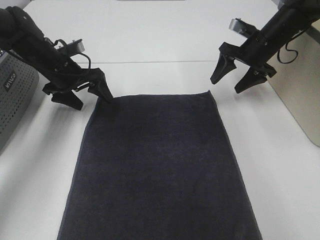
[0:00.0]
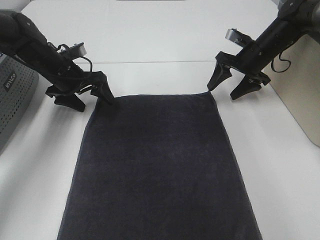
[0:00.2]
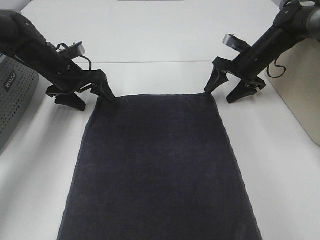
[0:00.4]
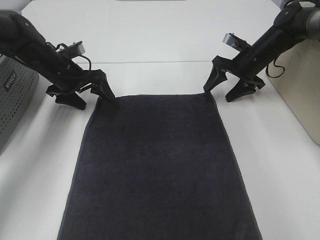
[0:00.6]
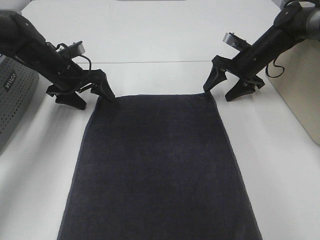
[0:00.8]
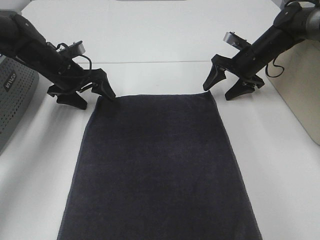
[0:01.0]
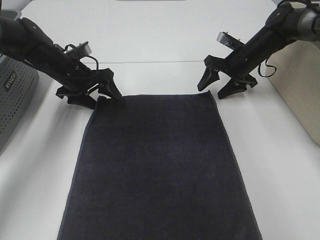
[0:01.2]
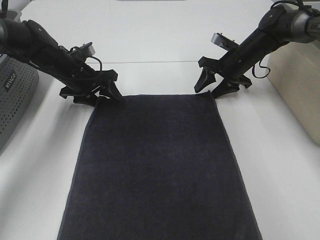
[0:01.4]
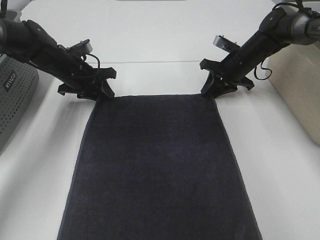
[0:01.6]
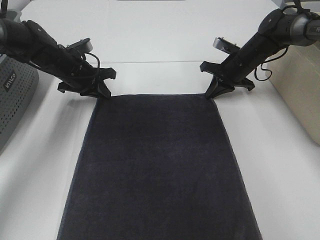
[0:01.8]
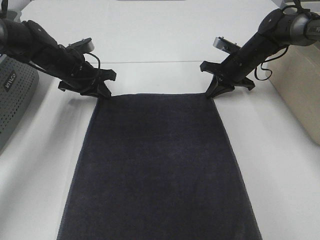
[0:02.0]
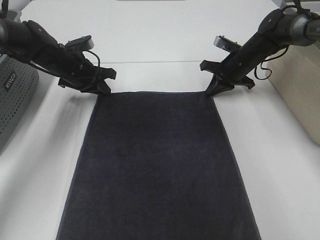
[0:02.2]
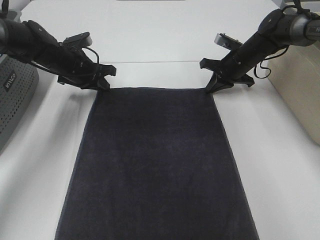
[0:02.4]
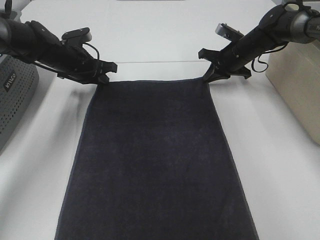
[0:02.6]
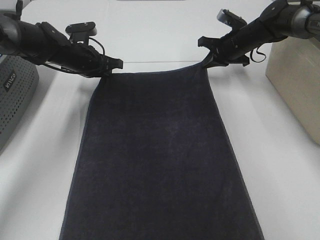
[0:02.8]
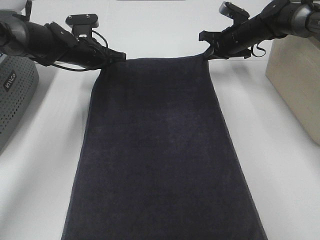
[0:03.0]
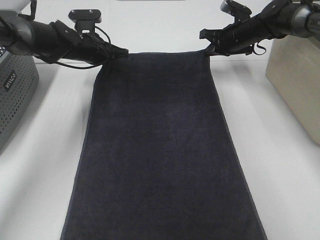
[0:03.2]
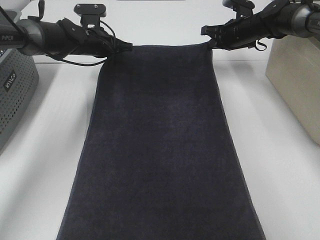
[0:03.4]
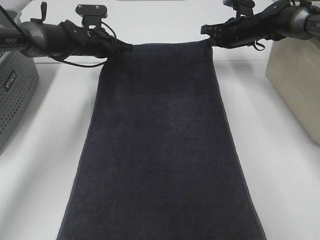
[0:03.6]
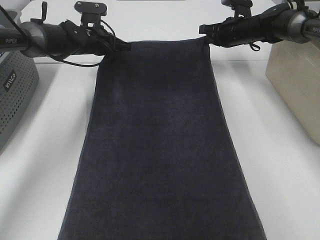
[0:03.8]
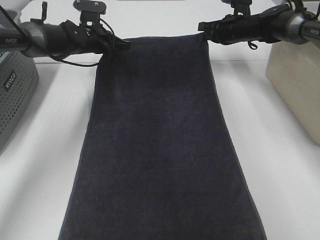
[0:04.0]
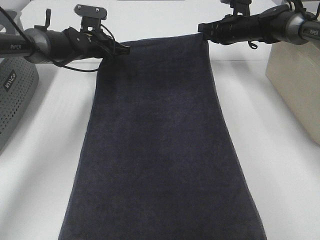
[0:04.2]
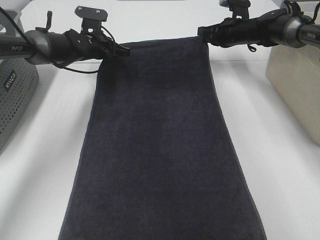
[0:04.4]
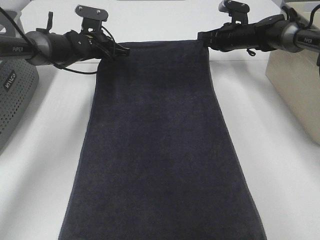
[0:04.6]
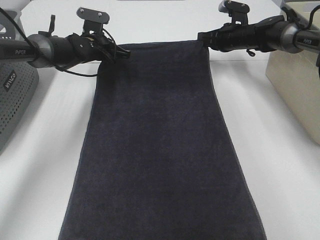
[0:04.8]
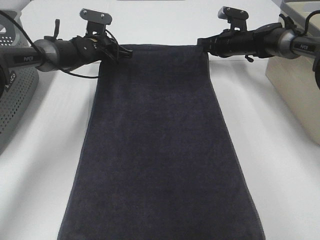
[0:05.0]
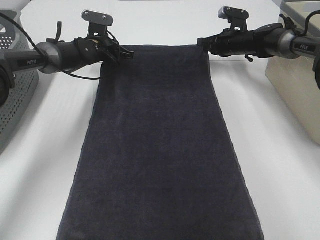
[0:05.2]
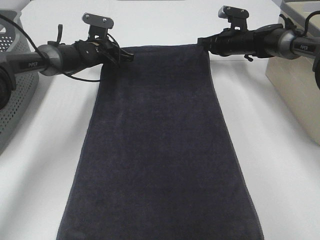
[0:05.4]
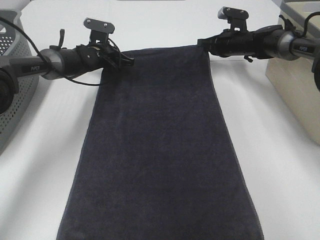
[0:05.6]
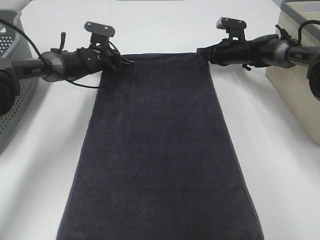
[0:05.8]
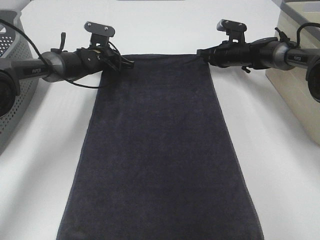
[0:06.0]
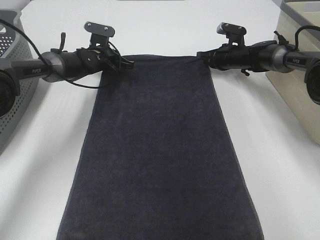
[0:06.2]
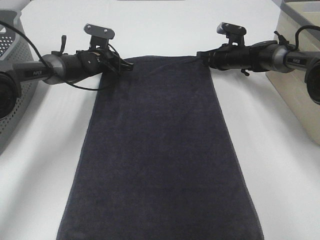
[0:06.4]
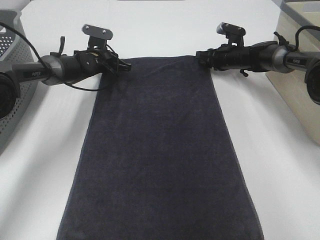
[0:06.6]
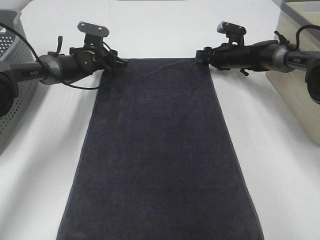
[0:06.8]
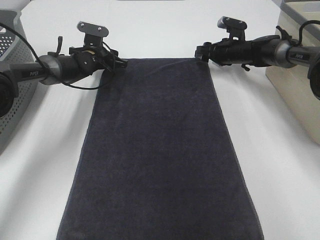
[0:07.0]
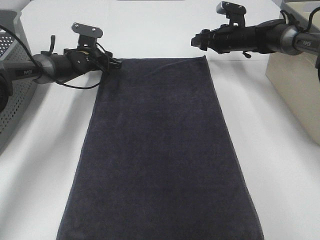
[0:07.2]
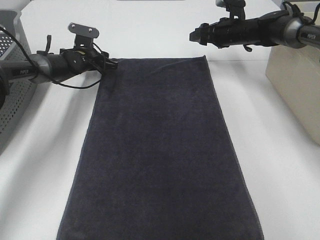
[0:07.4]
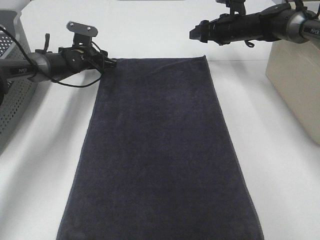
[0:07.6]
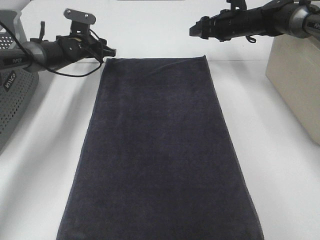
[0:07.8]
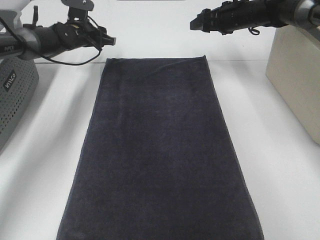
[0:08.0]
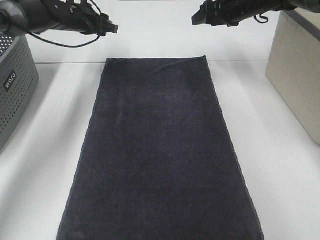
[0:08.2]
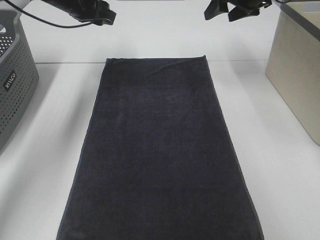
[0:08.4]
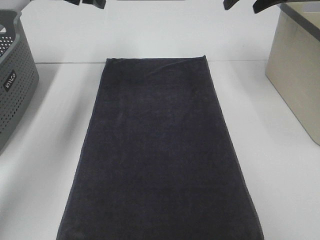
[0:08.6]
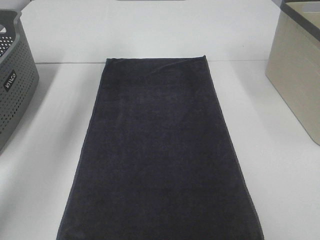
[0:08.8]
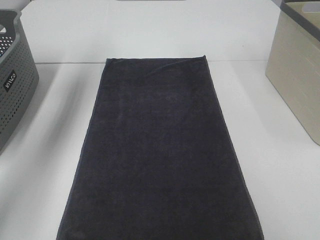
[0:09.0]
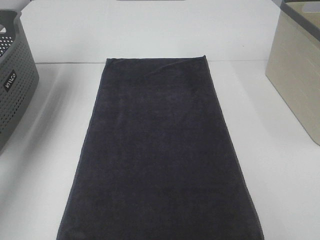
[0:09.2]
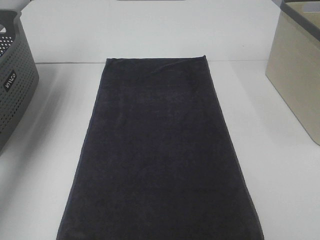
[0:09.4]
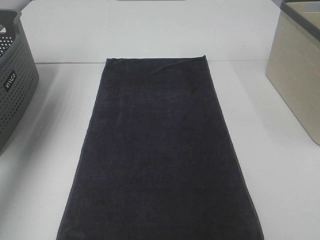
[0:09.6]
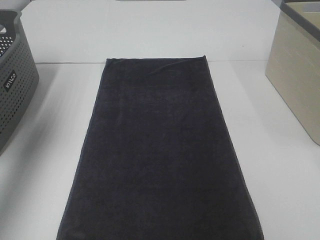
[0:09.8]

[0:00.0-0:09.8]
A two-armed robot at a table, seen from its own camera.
Task of the whole recording: Remove the towel and place it.
0:00.0 to 0:01.4: The right gripper changes place by about 5 cm.
0:01.4 to 0:02.8: The right gripper closes its fingers. The left gripper closes its fingers.
0:02.8 to 0:04.2: The left gripper moves forward, about 5 cm.
0:04.2 to 0:05.6: The grippers make only small movements.
0:05.6 to 0:07.0: The right gripper opens up. Meanwhile the left gripper opens its fingers.
0:07.0 to 0:08.4: Both grippers travel together upward, some 20 cm.
0:08.4 to 0:09.8: The left gripper moves backward, upward and to the left, some 30 cm. Meanwhile the right gripper goes some 35 cm backward and upward.

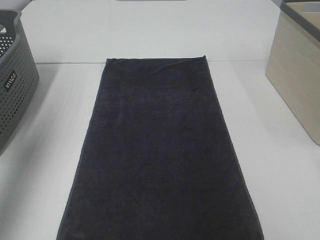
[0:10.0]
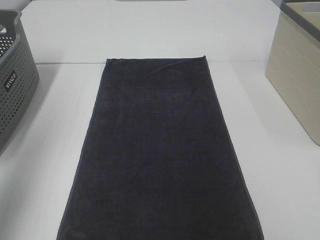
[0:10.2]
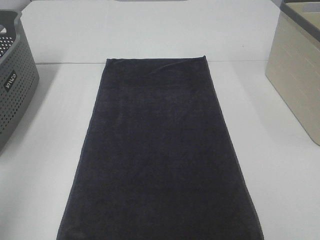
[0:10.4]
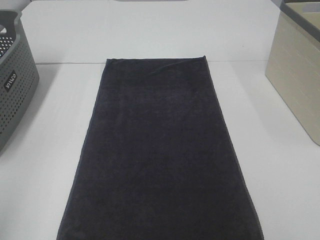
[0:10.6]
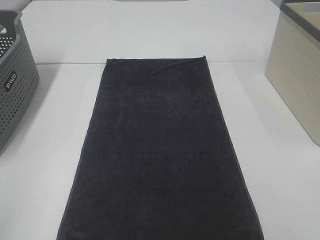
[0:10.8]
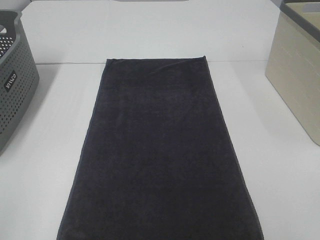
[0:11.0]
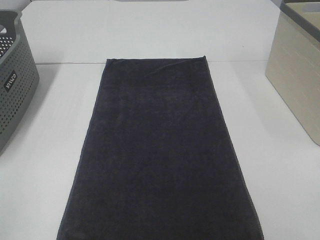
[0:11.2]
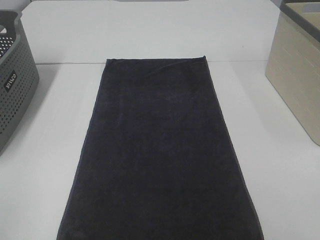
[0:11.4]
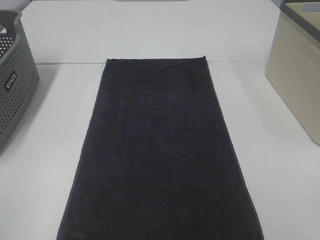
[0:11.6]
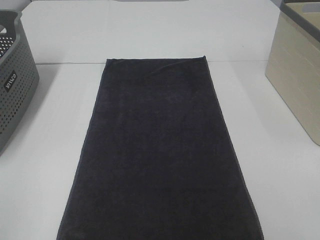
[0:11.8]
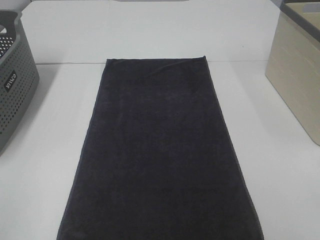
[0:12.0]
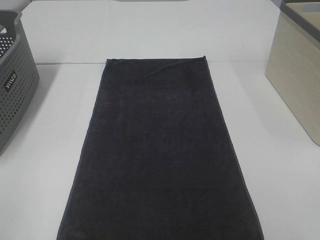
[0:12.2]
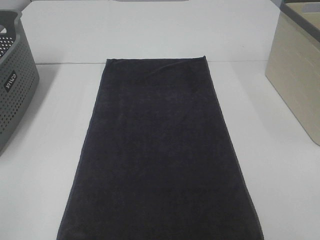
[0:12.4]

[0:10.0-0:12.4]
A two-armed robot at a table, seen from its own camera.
Task of the whole recording: Remove the towel and place it.
0:10.0 to 0:11.2: The left gripper travels backward and downward by about 30 cm.
0:11.2 to 0:12.4: The two grippers keep their place.

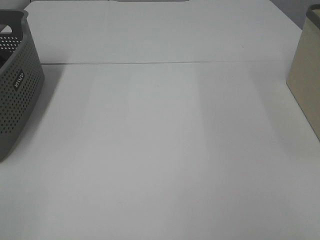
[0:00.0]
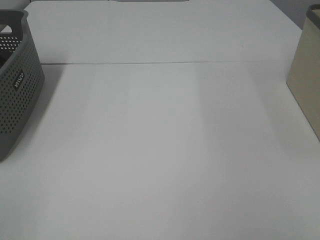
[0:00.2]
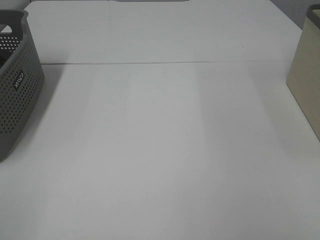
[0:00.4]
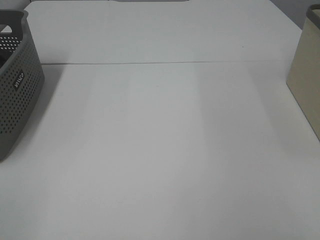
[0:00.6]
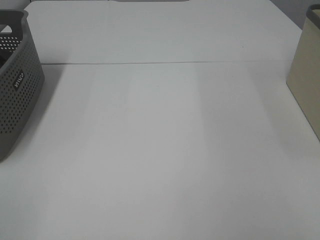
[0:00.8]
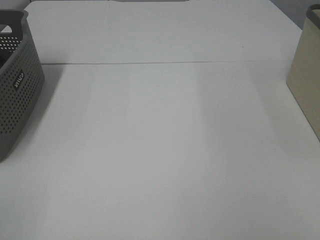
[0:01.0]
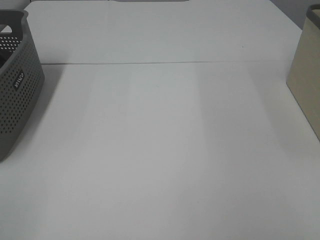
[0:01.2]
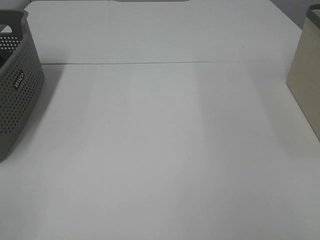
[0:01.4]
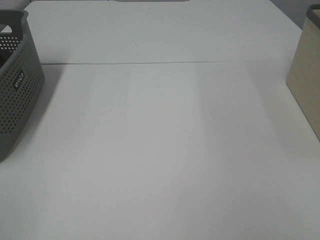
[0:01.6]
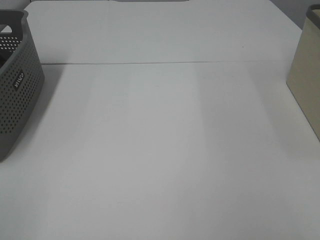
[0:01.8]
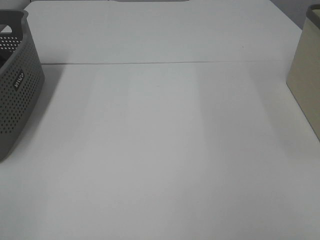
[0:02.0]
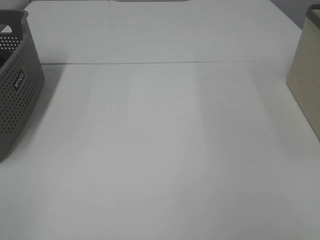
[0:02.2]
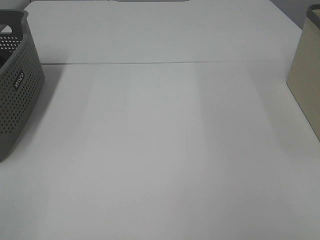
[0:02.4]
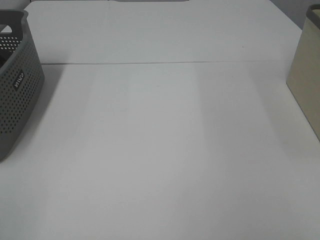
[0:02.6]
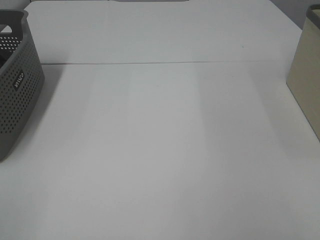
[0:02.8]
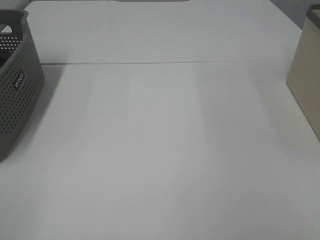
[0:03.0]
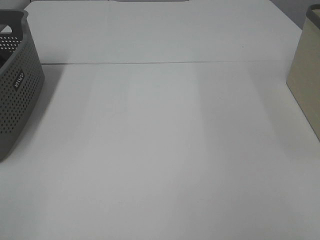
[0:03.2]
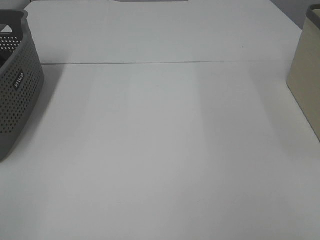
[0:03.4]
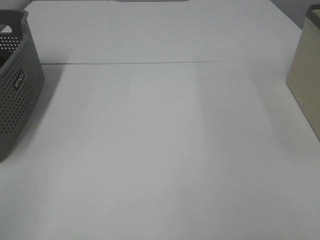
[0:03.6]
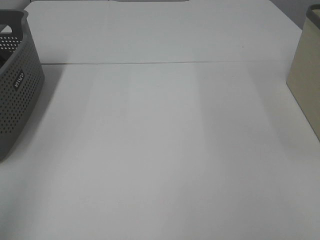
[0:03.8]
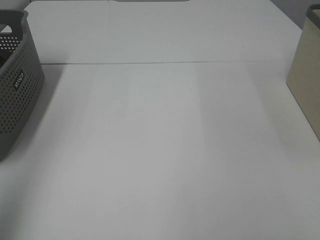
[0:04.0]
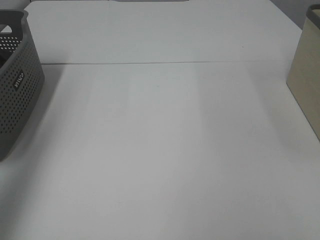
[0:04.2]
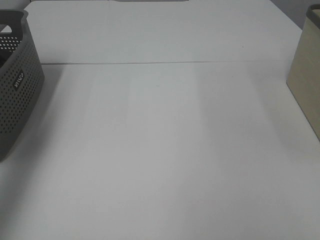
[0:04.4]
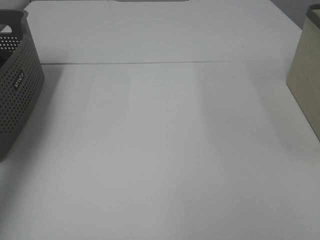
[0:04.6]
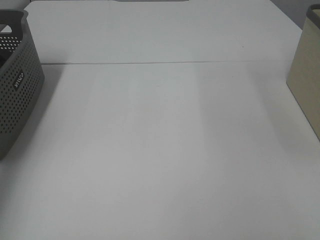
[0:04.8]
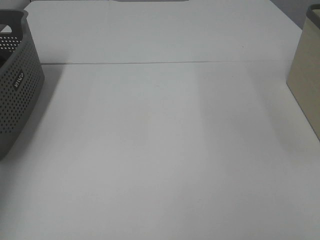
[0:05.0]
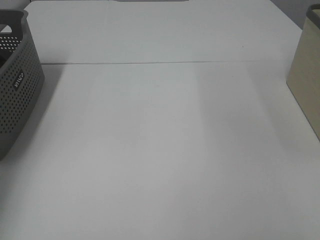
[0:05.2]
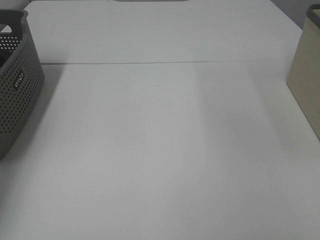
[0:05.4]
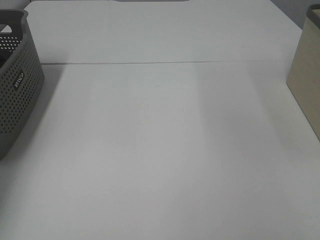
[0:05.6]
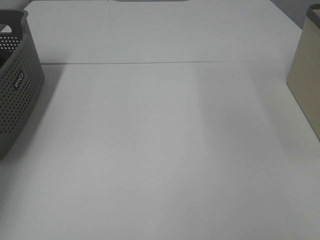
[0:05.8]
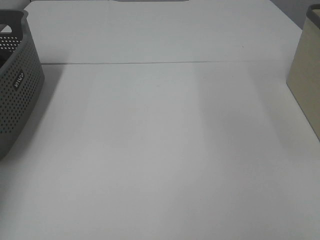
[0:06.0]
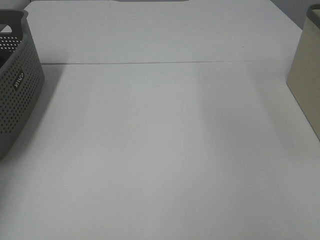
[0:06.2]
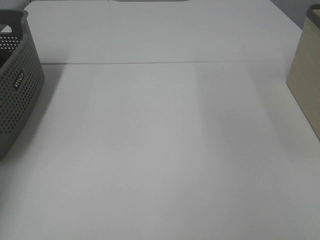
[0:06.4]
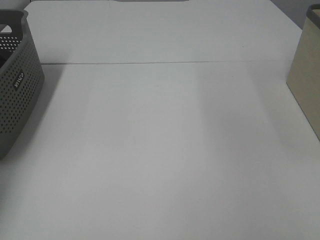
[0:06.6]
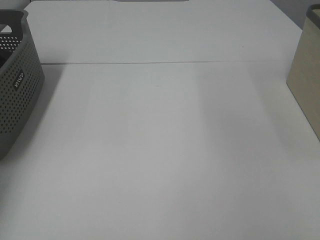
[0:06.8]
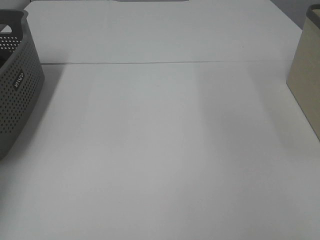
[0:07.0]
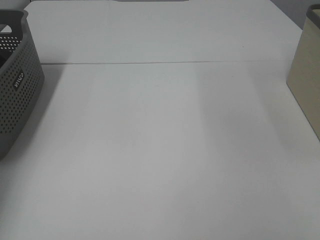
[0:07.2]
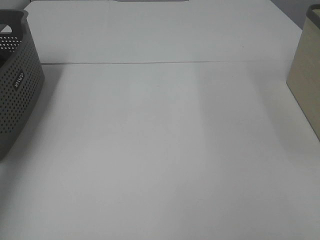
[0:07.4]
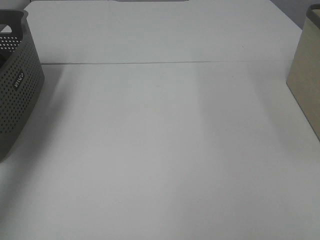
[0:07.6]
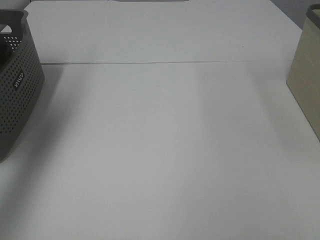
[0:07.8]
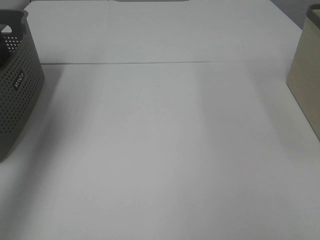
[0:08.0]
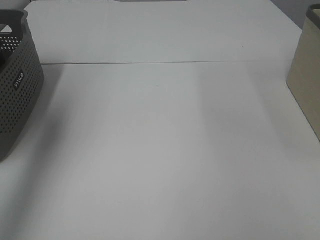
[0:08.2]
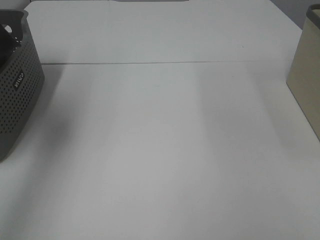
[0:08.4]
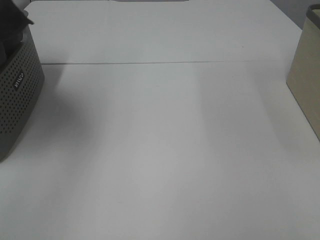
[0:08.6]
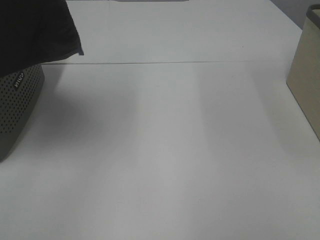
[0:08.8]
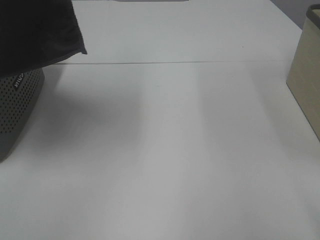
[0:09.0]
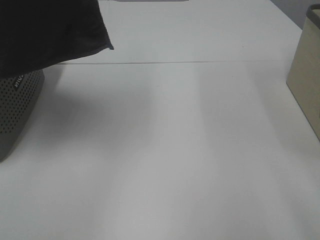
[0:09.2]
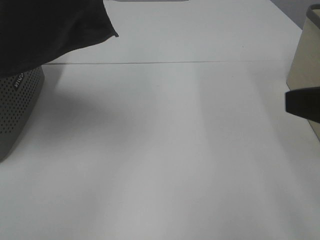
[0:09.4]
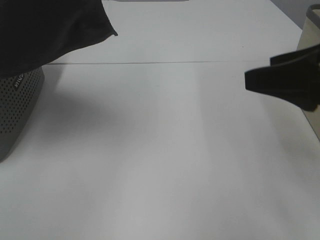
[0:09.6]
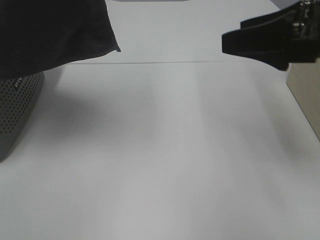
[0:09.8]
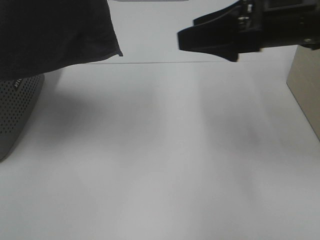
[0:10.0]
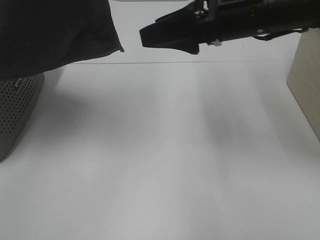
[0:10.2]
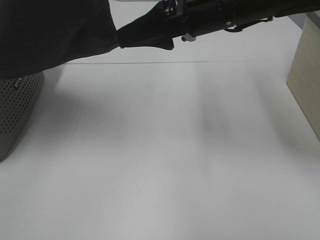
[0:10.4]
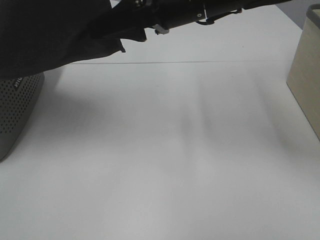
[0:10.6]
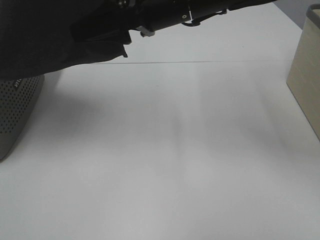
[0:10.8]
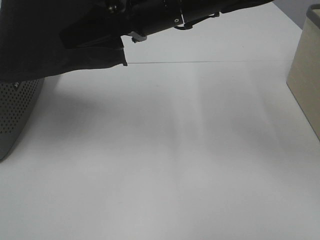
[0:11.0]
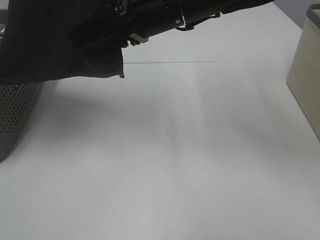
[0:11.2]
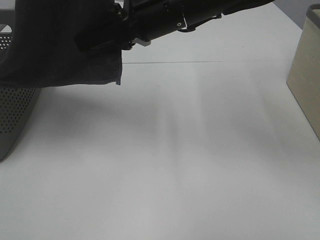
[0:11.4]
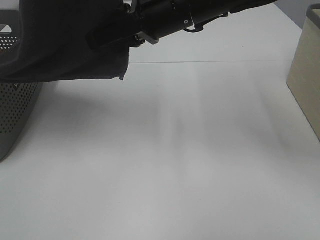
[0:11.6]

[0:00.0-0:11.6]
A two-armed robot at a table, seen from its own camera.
Task of the whole recording: Remove the towel and place it.
0:00.0 to 0:02.8: Neither gripper changes place.
0:02.8 to 0:04.4: The left gripper is displaced forward and upward by about 30 cm.
0:04.4 to 0:05.8: The left gripper travels downward and forward by approximately 25 cm.
0:07.2 to 0:08.8: The left gripper moves upward, backward and to the right, approximately 40 cm.
0:08.8 to 0:10.2: The right gripper heads forward and to the left, covering roughly 35 cm. The left gripper shifts about 5 cm to the right.
0:10.2 to 0:11.6: The right gripper is displaced to the left by about 10 cm, and closes.
